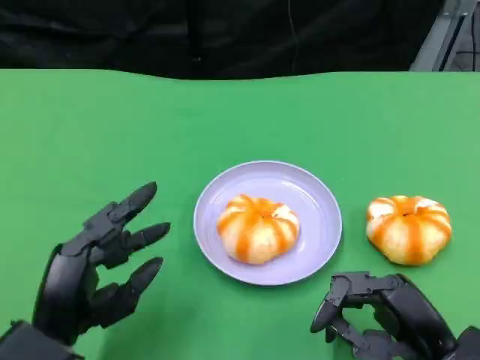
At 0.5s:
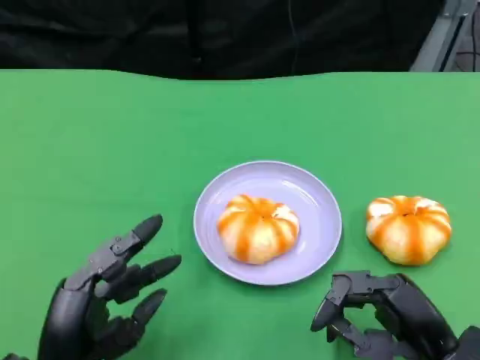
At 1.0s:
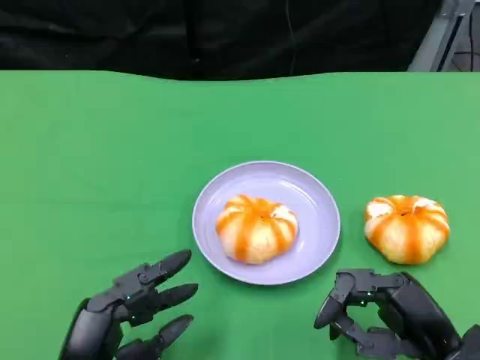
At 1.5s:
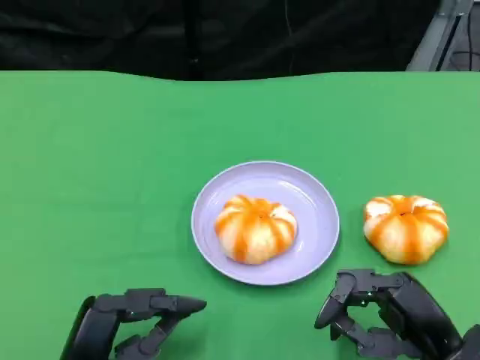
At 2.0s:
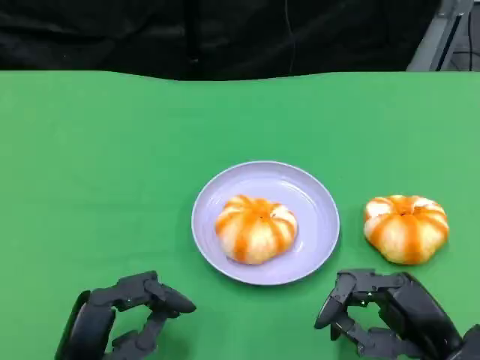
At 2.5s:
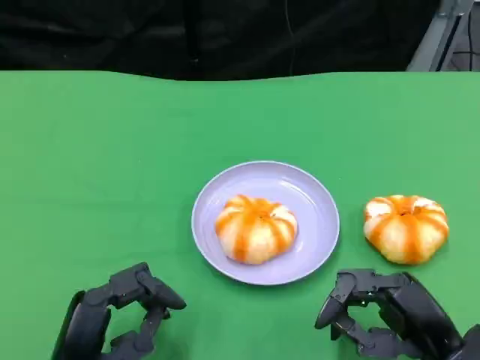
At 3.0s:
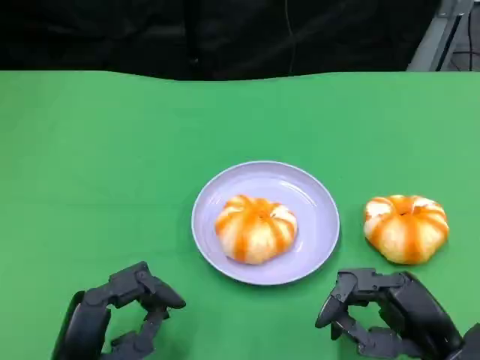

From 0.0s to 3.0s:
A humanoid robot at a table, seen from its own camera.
Task of the whole recording: Grasp the bread from the table and place it into the plate.
From 0.0s to 1.5s: The hands stay close to where they were, moving slightly.
From 1.5s to 3.0s: The two hands keep their place.

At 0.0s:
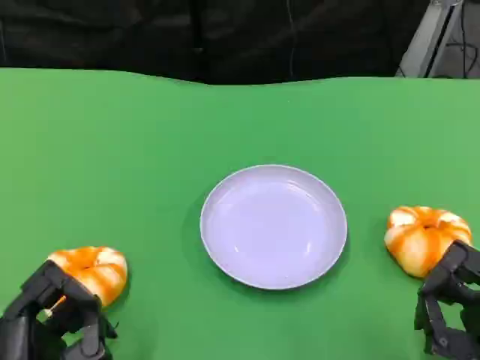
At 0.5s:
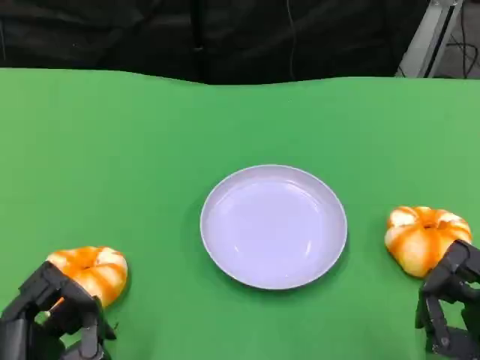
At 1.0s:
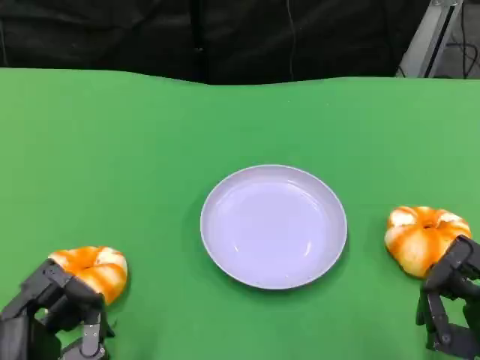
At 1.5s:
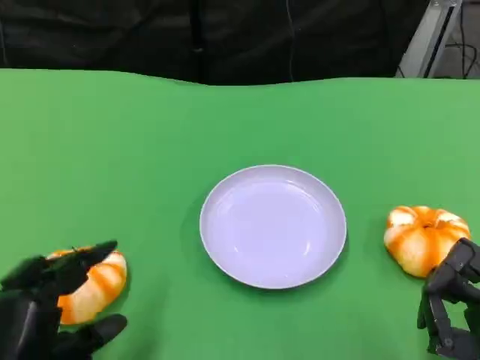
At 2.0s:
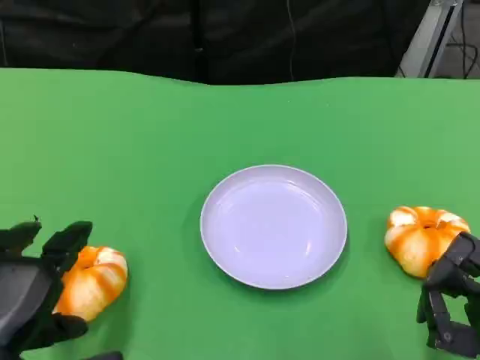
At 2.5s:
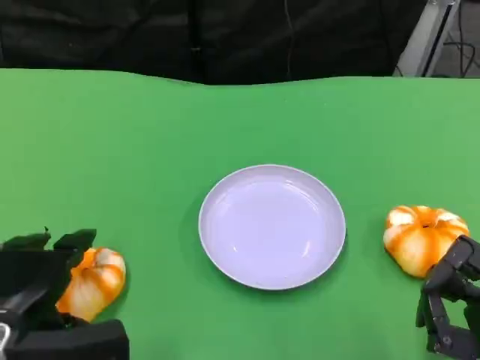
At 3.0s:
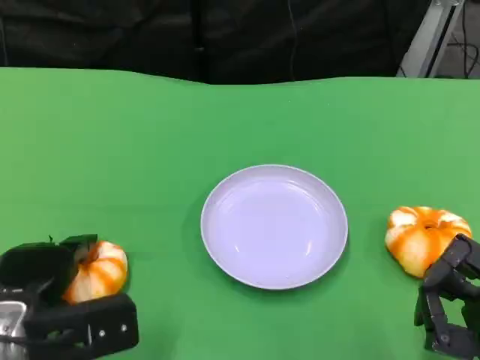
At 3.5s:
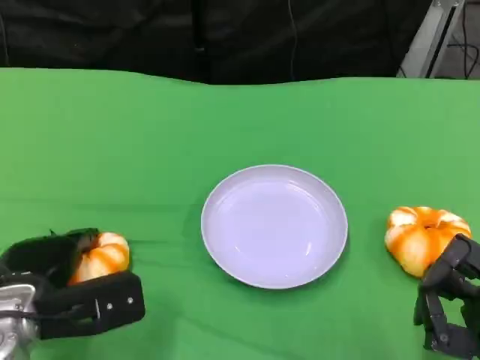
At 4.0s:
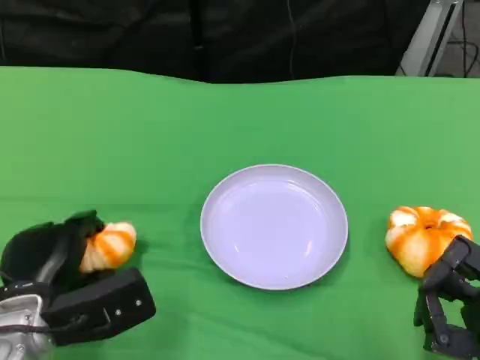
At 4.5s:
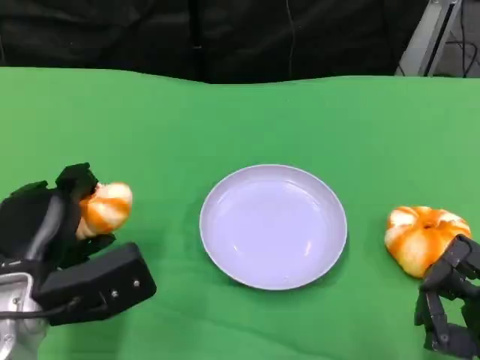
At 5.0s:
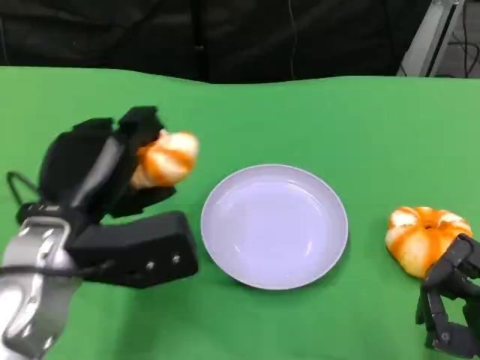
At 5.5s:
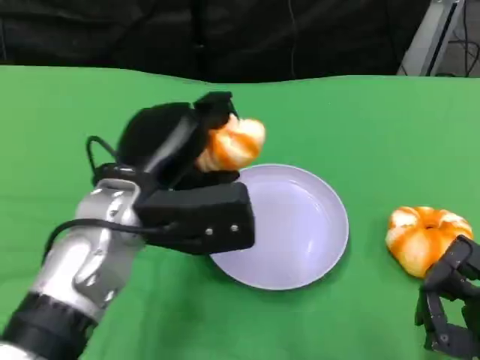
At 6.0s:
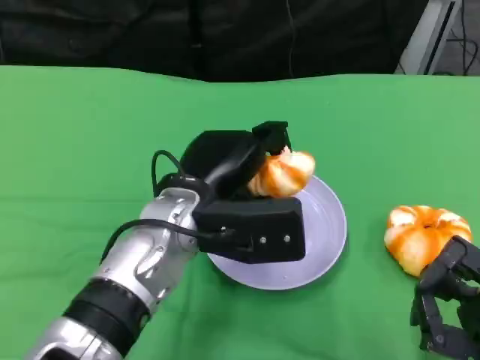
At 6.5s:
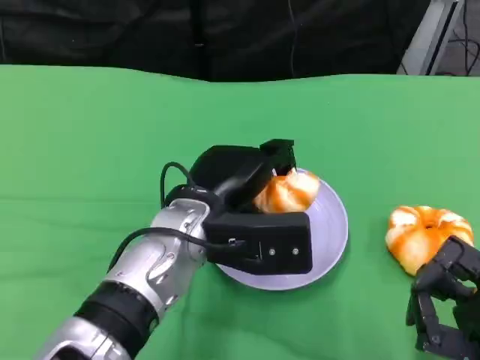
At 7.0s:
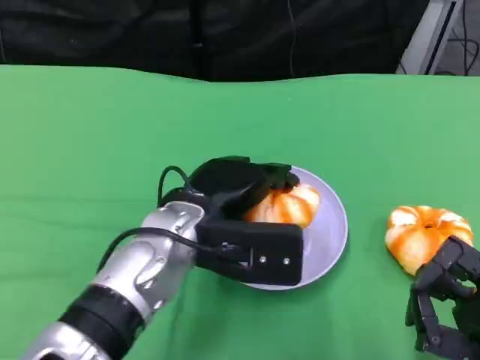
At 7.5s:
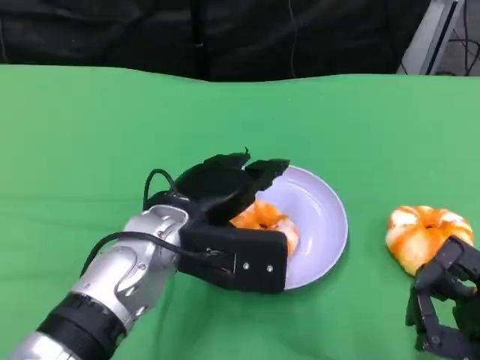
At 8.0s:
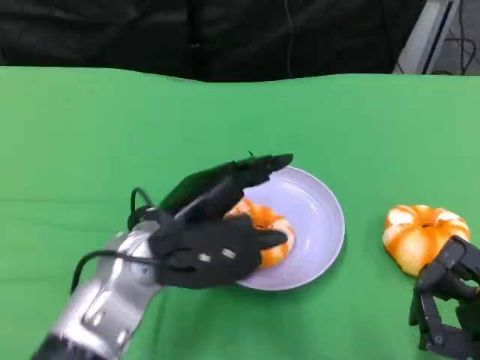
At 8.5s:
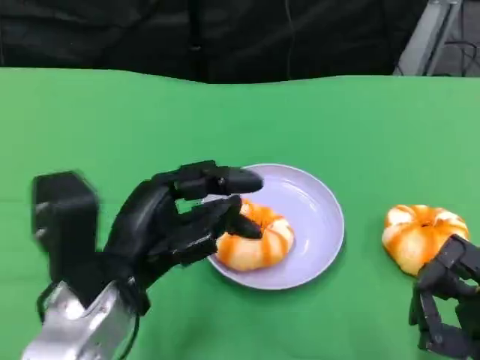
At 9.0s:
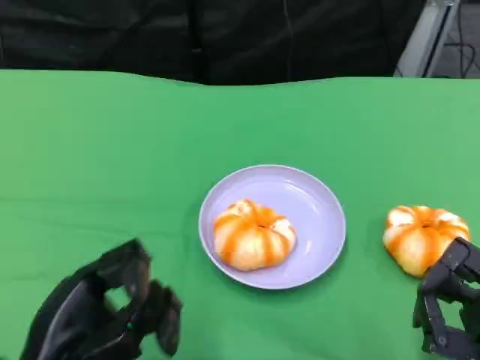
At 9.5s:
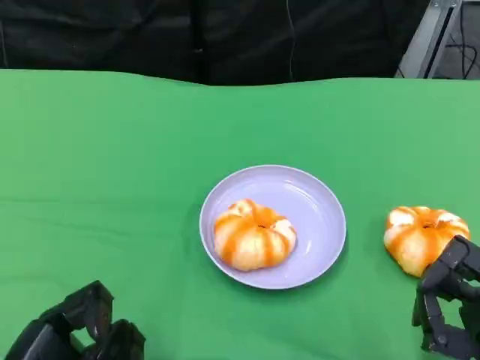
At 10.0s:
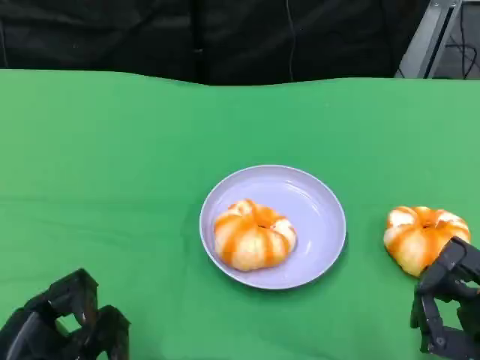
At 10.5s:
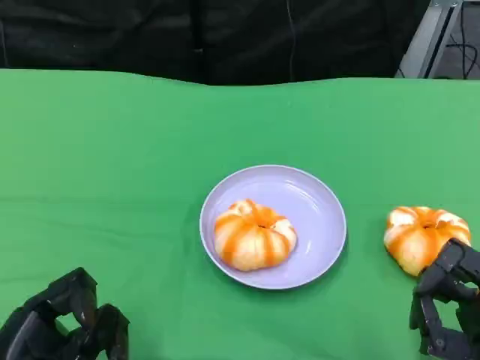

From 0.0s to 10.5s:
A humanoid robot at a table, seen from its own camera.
Task of the whole recording: Grasp the bread from the table and place it into the plate.
From 0.0s to 2.0s: The left hand goes roughly 5 cm upward.
From 2.0s to 4.0s: The left hand shifts roughly 10 cm forward and downward.
From 4.0s to 6.5s: The left hand moves to the right and upward, about 15 cm.
From 6.5s to 8.5s: The left hand goes roughly 10 cm to the left and backward.
From 8.5s to 10.5s: The left hand travels to the left, backward and downward by approximately 15 cm.

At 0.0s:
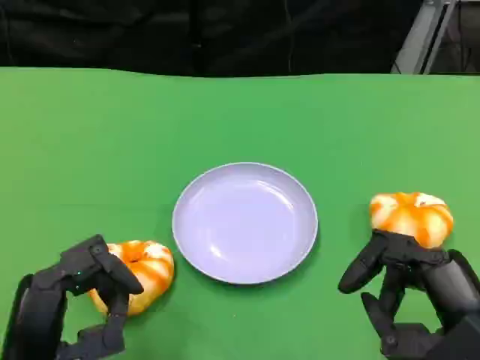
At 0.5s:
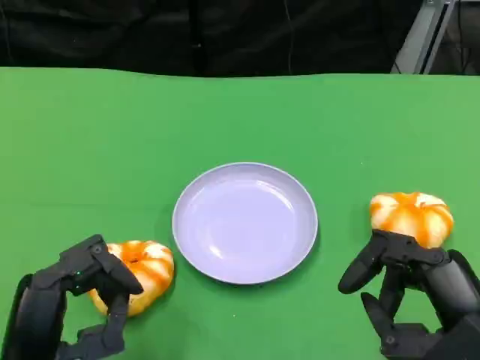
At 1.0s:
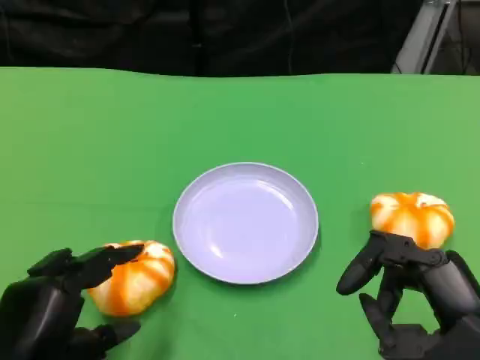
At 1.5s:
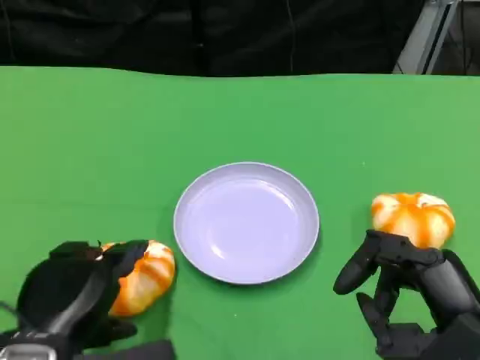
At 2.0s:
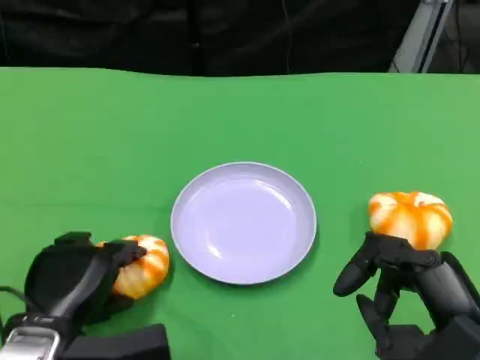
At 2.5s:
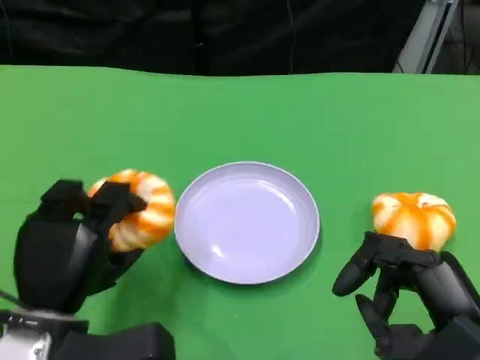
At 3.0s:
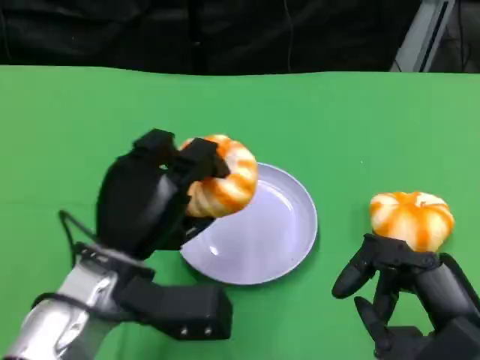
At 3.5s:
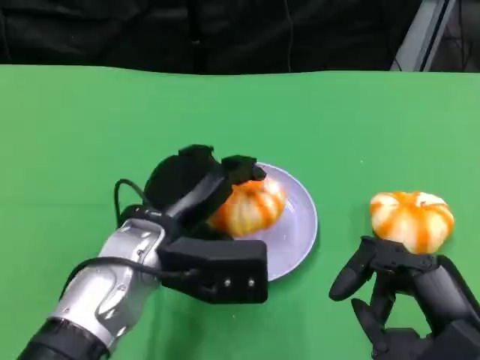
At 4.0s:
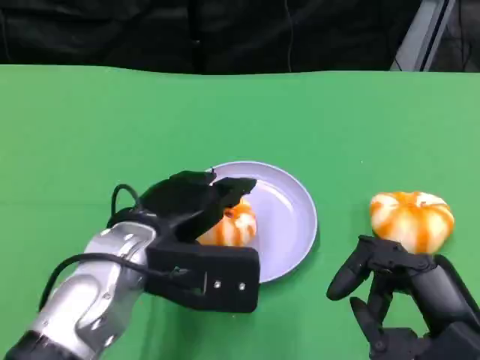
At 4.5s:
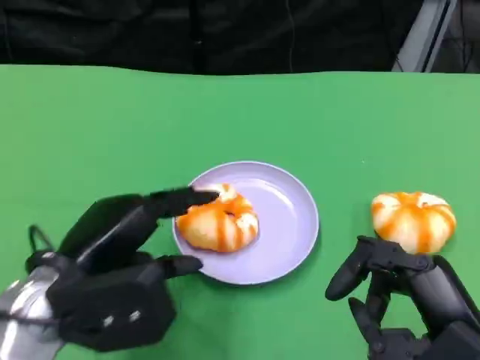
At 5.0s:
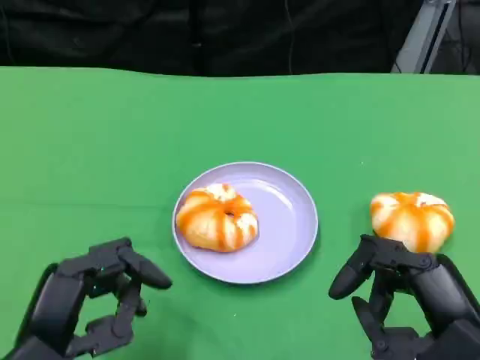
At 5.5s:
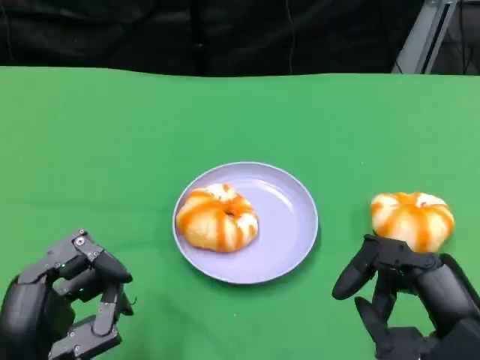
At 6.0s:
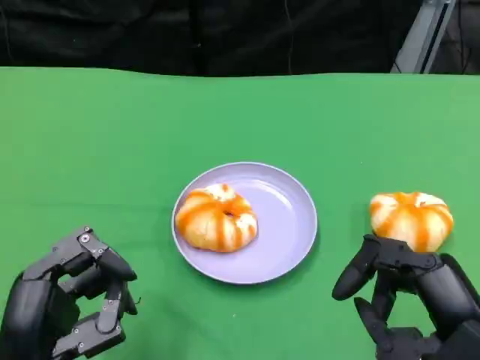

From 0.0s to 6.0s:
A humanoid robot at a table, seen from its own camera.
Task of the whole recording: Grasp the bread from the table and place it into the plate.
From 0.0s to 2.0s: The left hand goes roughly 5 cm forward.
From 2.0s to 4.0s: The left hand is displaced to the right, upward and forward by some 15 cm.
From 4.0s to 6.0s: The left hand shifts approximately 15 cm backward and to the left.

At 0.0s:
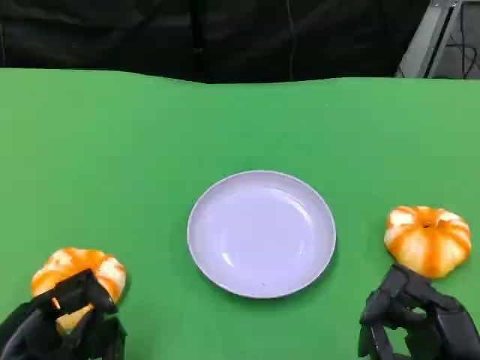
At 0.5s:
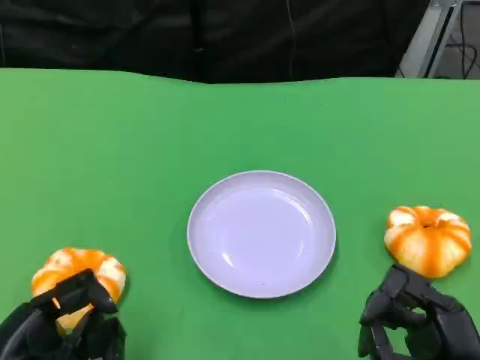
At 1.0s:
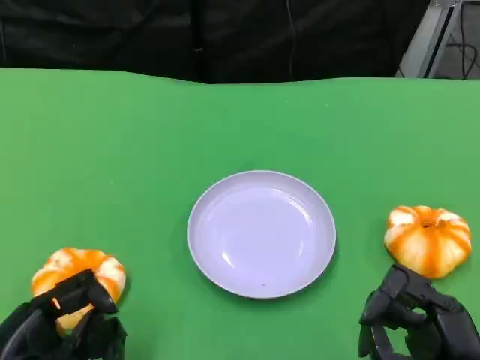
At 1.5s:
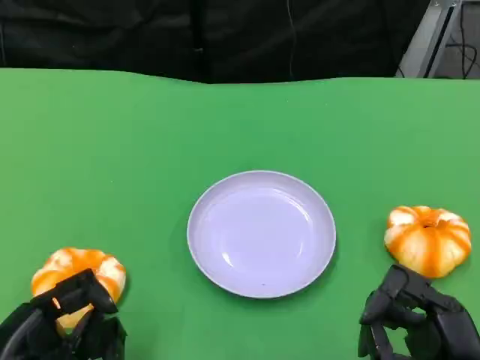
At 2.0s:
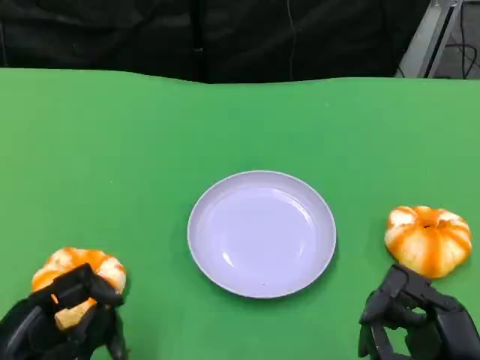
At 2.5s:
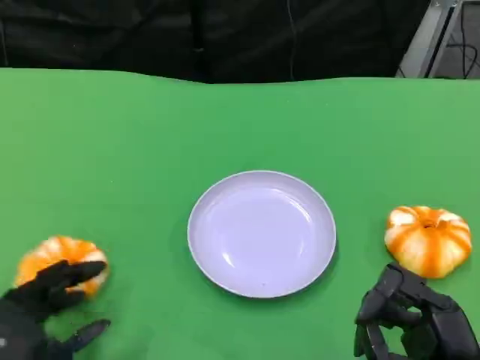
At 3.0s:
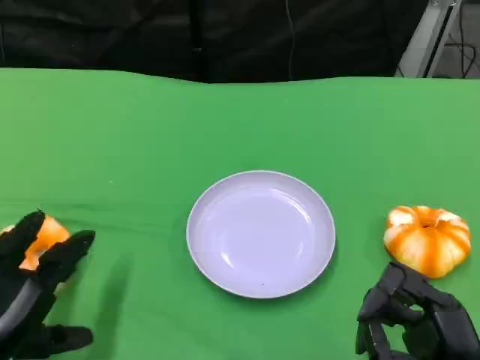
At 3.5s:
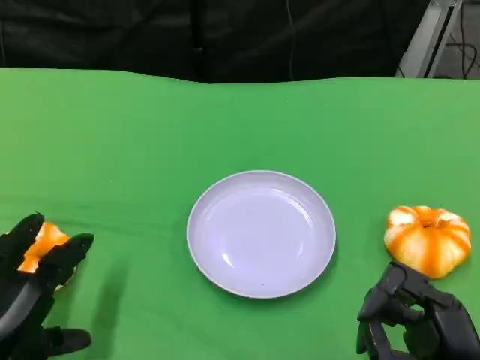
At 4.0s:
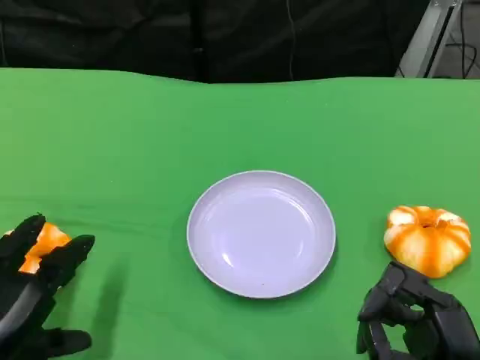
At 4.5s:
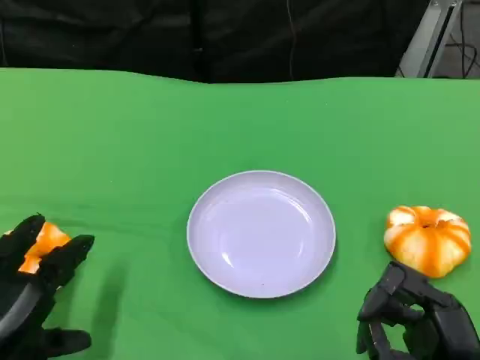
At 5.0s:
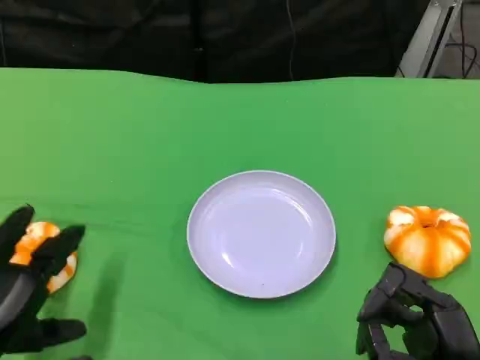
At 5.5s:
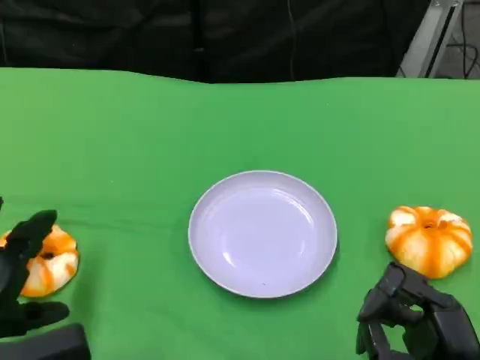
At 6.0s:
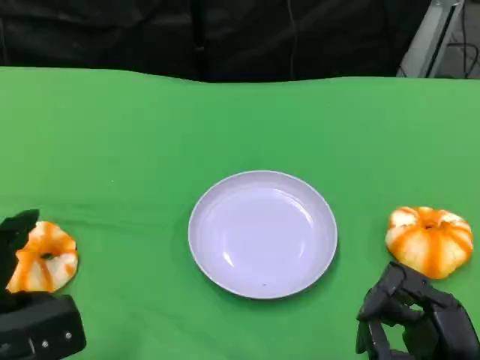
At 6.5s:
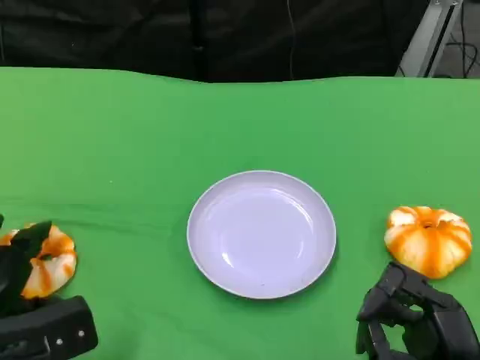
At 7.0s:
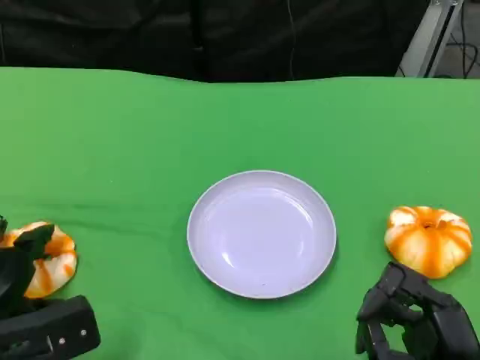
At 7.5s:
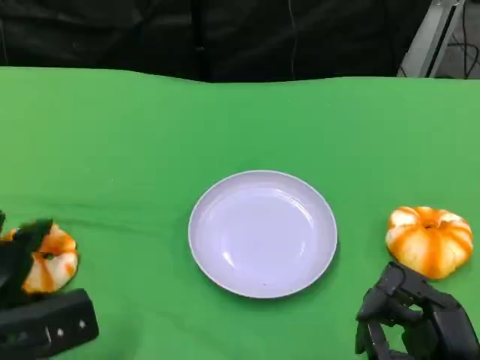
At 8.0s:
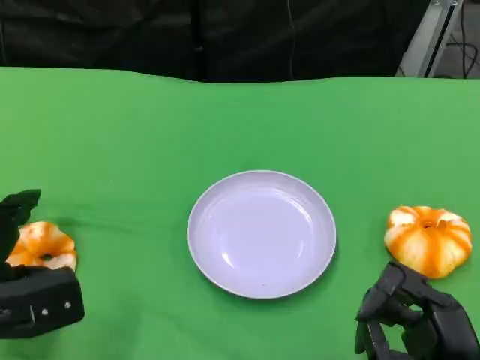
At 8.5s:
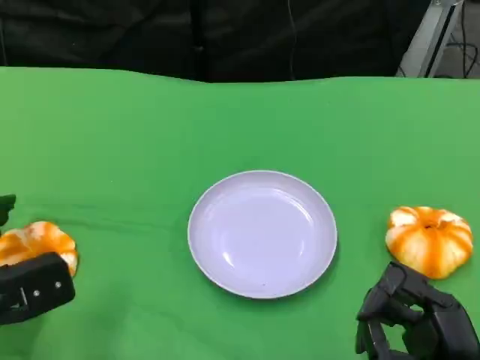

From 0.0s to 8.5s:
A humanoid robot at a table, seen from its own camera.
Task of the whole recording: Grasp the bread from the table and place it into the plate.
From 0.0s to 2.0s: The hands stay close to where they were, moving slightly.
From 4.0s to 6.5s: The left hand is displaced forward by about 5 cm.
From 6.5s to 8.5s: The hands move only a little.